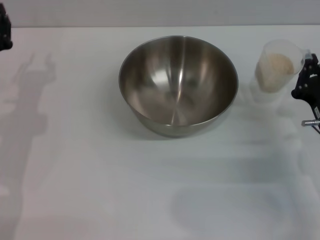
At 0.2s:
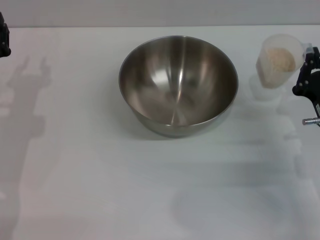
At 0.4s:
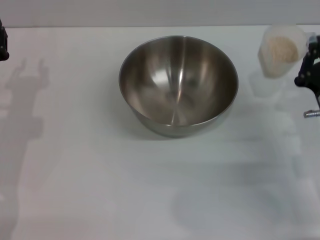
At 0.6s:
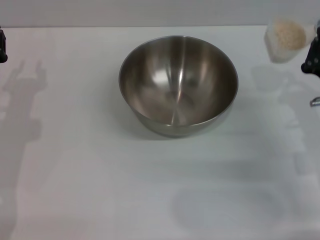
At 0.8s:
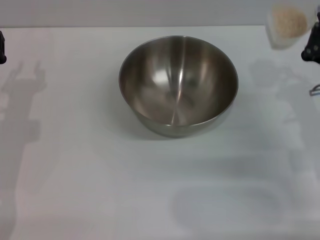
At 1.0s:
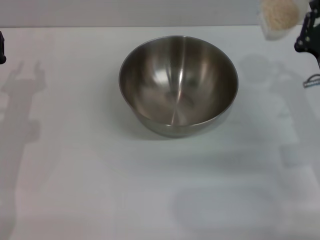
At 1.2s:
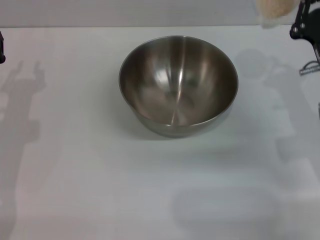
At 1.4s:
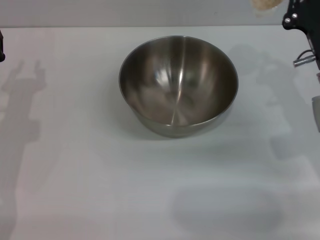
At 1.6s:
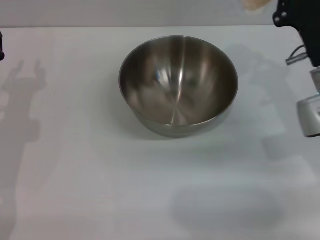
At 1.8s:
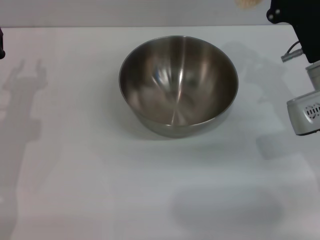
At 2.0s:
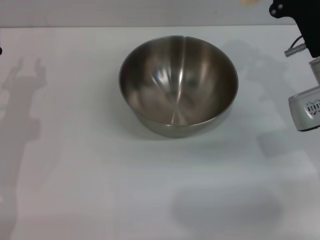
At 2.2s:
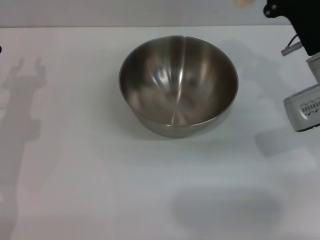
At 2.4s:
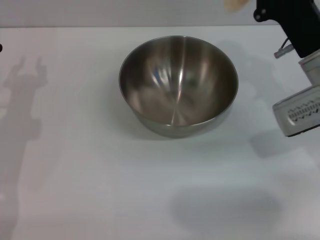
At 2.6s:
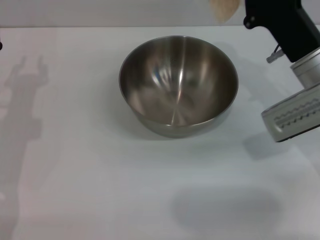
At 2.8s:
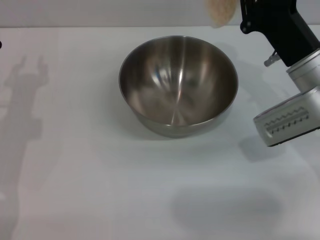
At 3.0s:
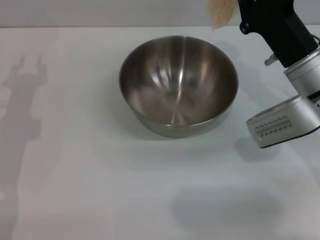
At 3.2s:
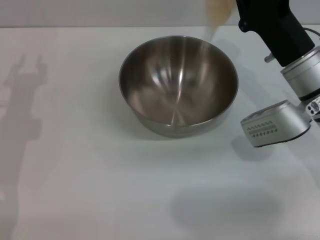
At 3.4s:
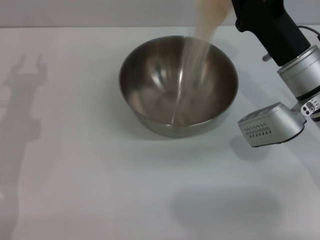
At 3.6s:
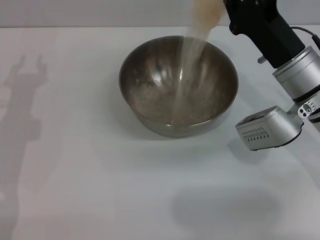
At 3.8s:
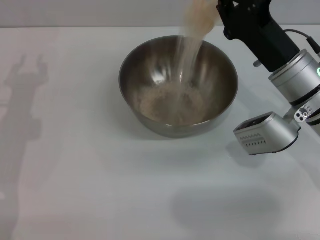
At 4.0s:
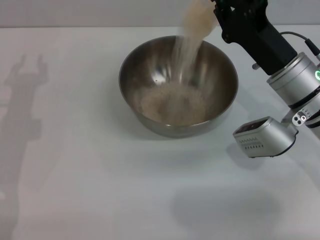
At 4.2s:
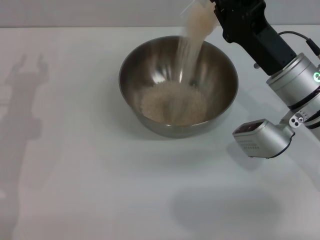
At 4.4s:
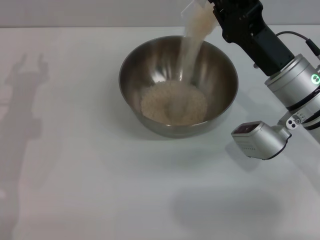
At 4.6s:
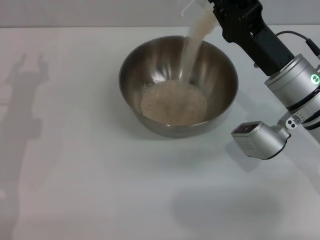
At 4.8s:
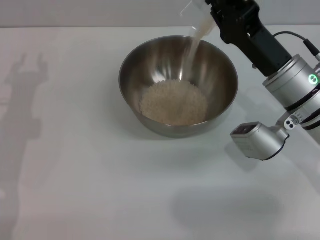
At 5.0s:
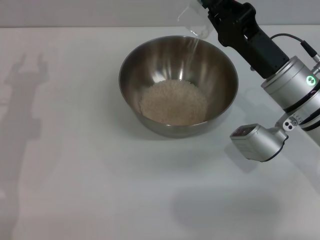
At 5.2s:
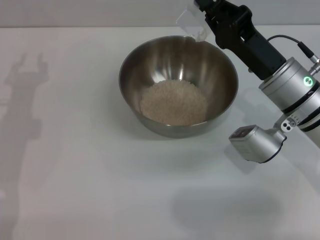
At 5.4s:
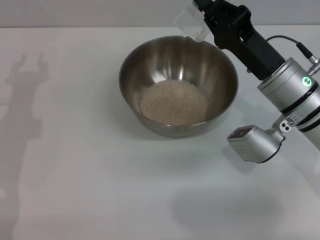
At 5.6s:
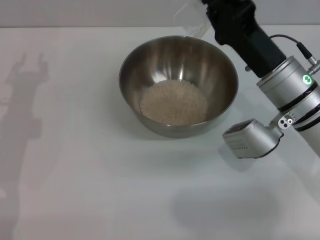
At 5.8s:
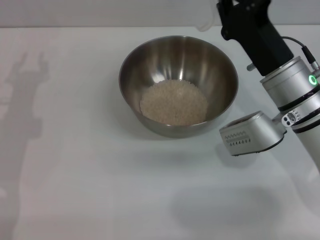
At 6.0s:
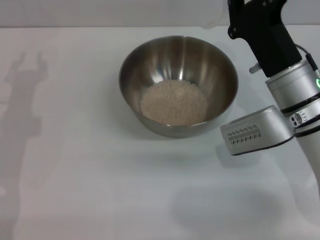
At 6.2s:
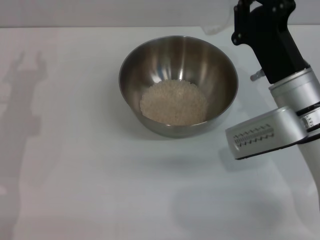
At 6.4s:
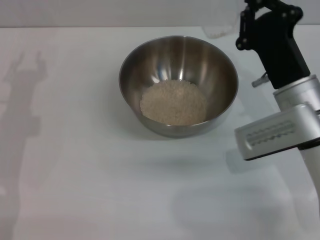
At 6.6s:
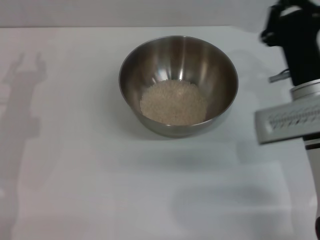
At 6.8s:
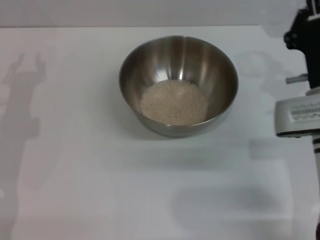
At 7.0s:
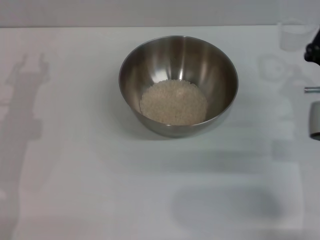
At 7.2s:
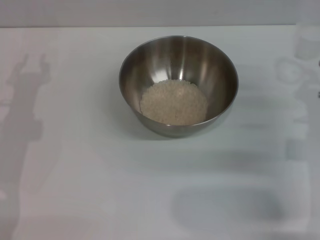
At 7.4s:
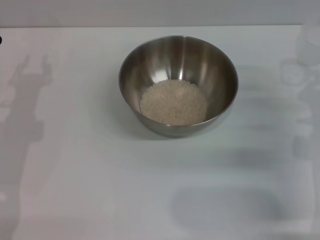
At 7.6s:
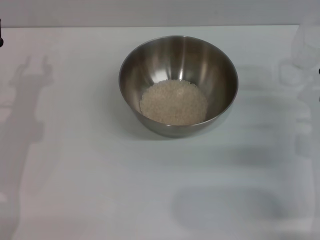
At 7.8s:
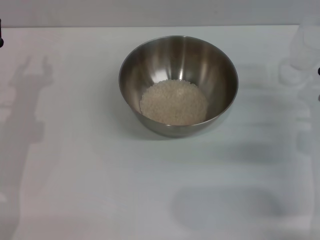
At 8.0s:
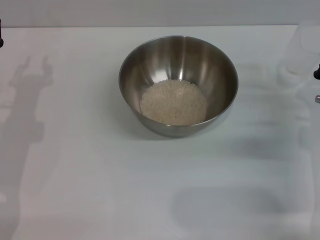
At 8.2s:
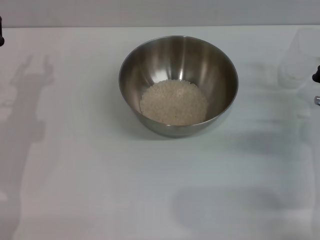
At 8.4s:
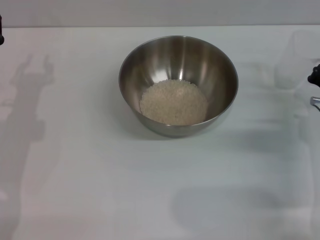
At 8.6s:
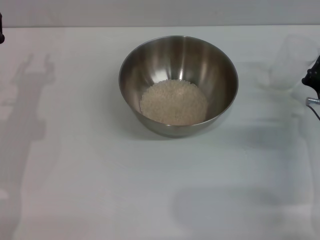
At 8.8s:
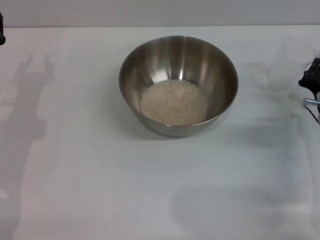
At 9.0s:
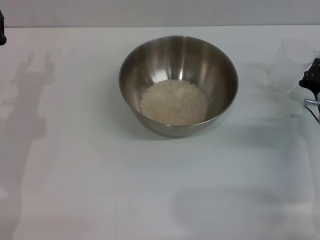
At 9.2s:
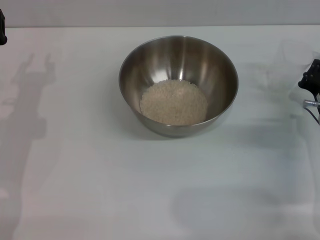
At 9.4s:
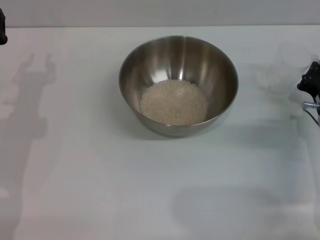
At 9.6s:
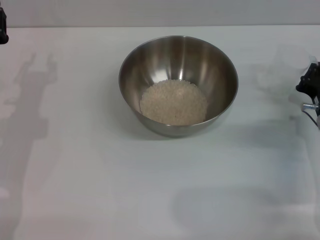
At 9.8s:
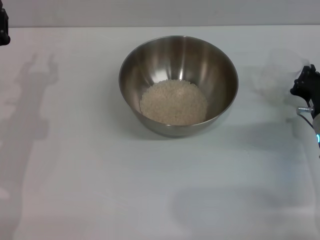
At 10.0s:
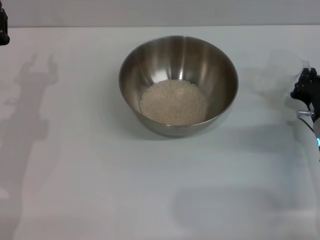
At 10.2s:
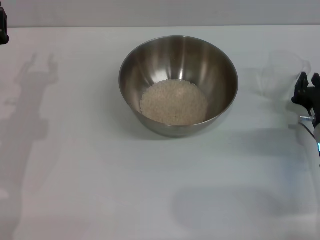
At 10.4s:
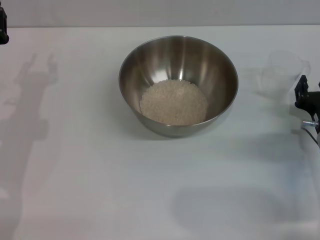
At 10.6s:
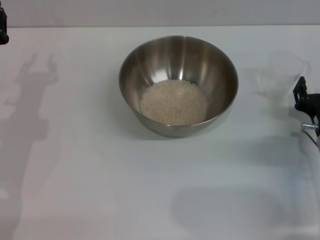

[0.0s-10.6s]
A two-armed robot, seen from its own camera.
Task of the whole recording: Place the bowl in the middle of the table with one hand and pour the rice from the grain cup into it with the other hand.
Step, 0.0s to 5.6s: Pour the rice from the cup into the bowl with the right gripper.
Step, 5.8s to 10.6s: Place the cup on the table with the right gripper.
0.0s to 1.6s: The right gripper travels upward and forward by approximately 10 cm.
6.0s to 7.6s: The right gripper is displaced to the right and downward by roughly 10 cm.
7.6s to 9.0s: There are only small adjustments of the grippers.
9.0s to 10.6s: The right gripper opens its fingers.

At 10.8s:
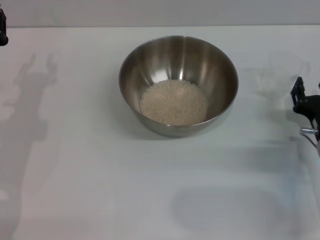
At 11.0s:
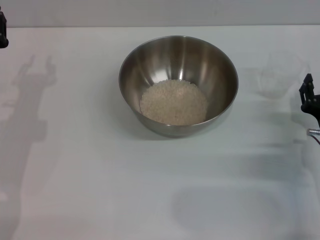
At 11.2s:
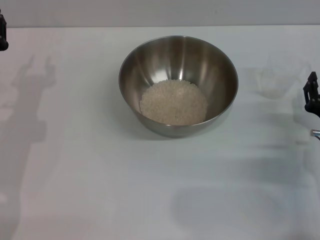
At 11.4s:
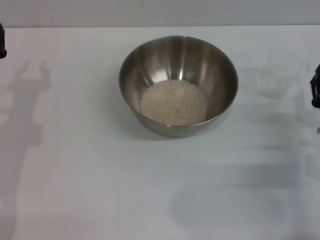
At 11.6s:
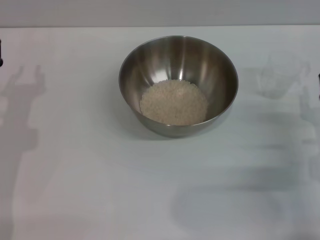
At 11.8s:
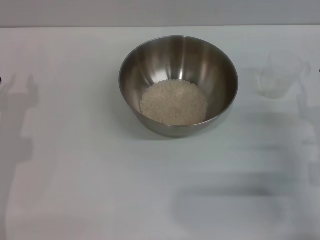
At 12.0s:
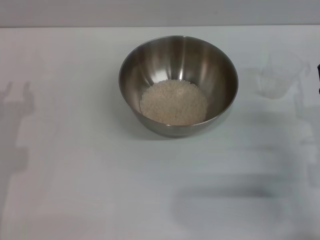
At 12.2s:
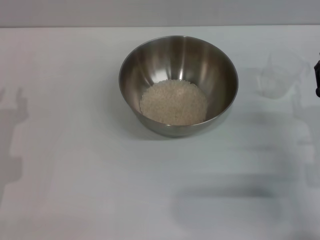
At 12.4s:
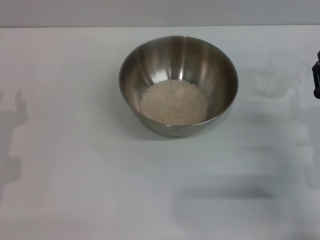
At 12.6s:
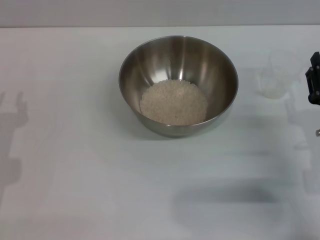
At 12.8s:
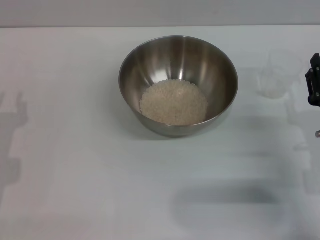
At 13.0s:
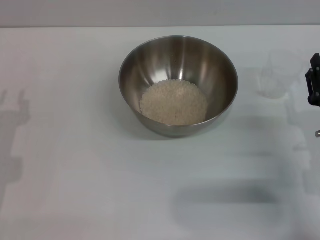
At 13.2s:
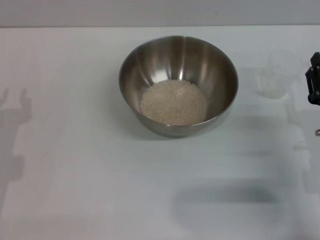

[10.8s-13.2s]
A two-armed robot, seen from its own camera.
Task of the whole recording: Place the bowl in the middle of the table with one hand and pour the rice from the grain cup into it with the other hand.
12.0s to 13.2s: The grippers stay close to where they were, moving slightly.

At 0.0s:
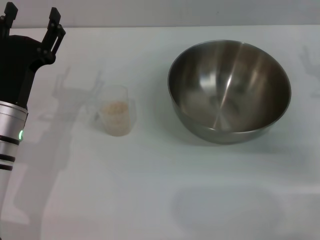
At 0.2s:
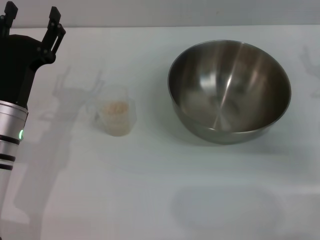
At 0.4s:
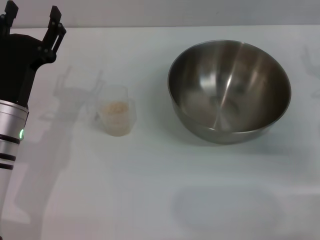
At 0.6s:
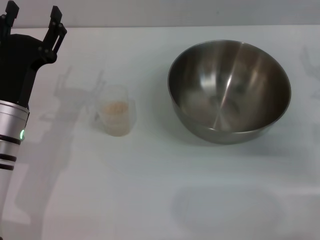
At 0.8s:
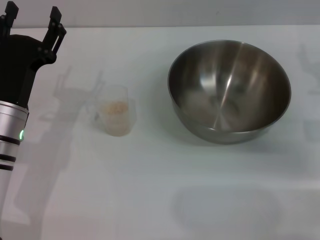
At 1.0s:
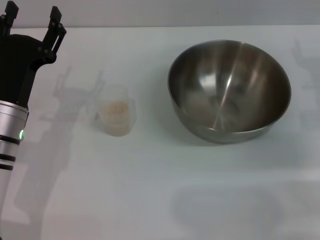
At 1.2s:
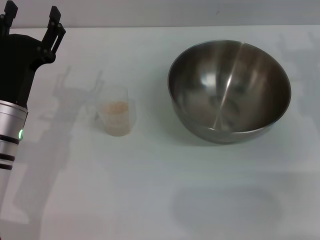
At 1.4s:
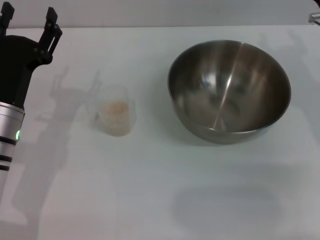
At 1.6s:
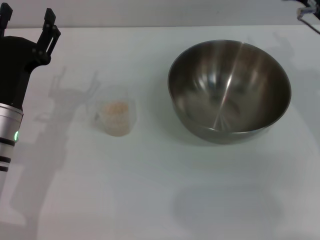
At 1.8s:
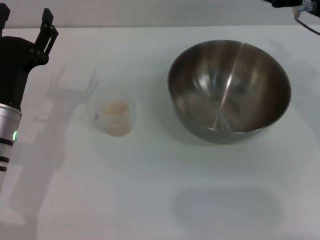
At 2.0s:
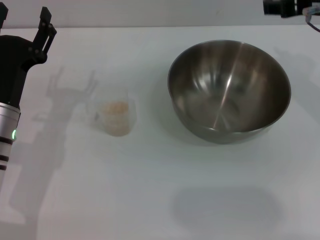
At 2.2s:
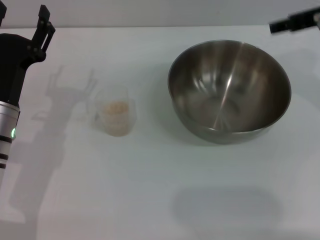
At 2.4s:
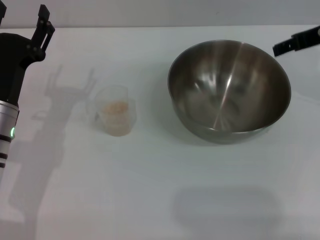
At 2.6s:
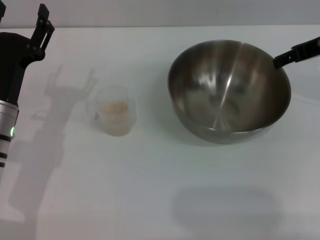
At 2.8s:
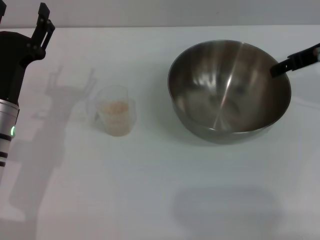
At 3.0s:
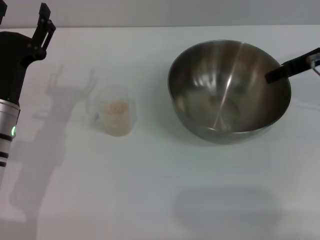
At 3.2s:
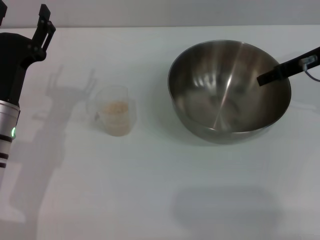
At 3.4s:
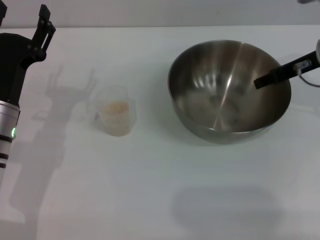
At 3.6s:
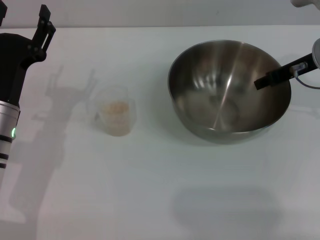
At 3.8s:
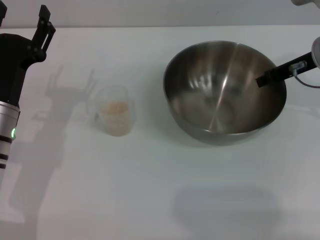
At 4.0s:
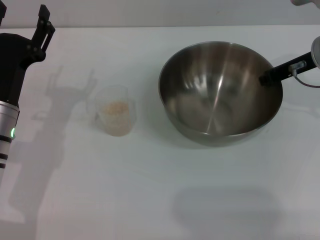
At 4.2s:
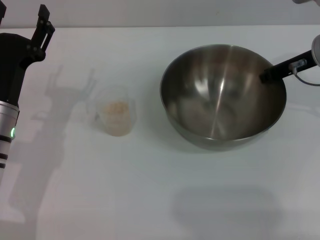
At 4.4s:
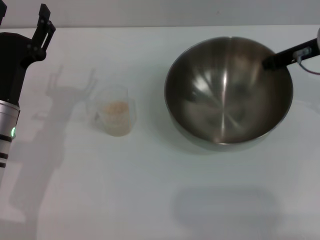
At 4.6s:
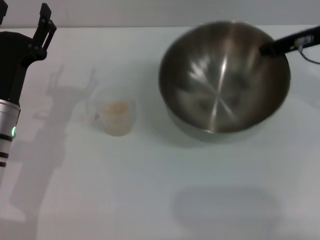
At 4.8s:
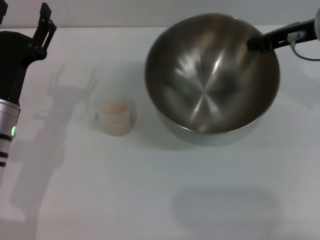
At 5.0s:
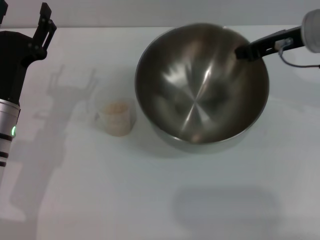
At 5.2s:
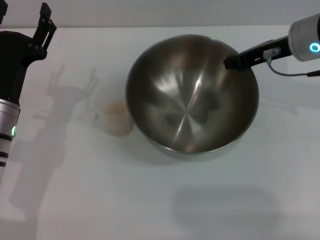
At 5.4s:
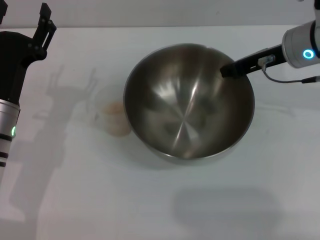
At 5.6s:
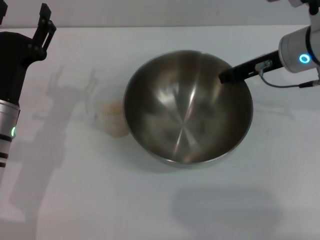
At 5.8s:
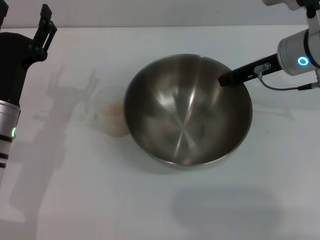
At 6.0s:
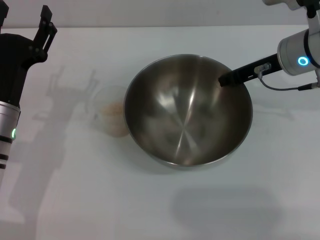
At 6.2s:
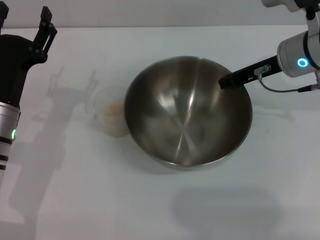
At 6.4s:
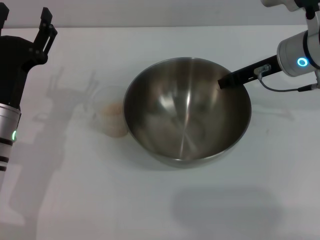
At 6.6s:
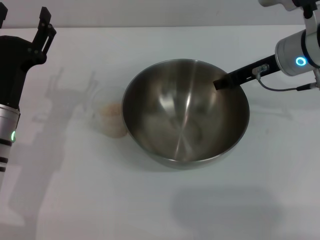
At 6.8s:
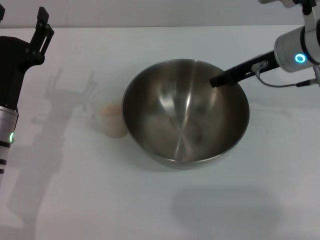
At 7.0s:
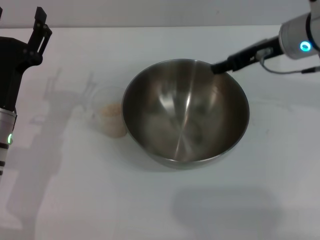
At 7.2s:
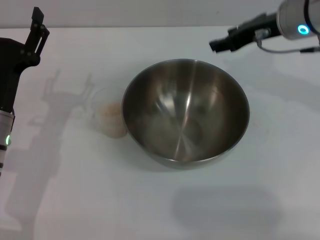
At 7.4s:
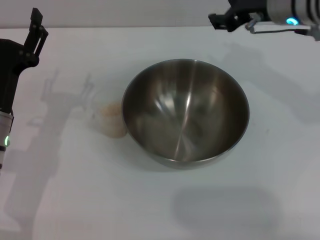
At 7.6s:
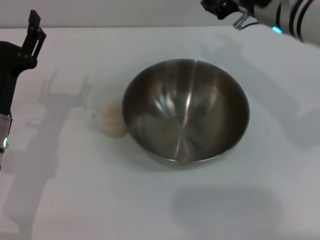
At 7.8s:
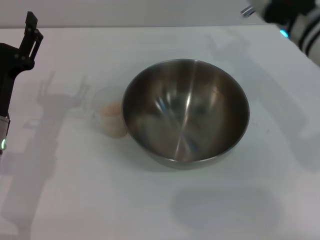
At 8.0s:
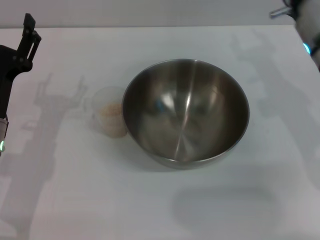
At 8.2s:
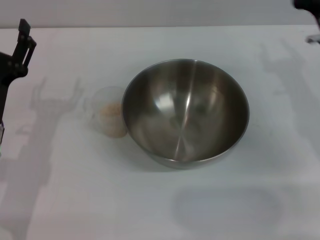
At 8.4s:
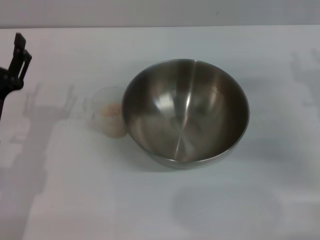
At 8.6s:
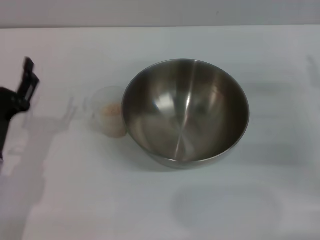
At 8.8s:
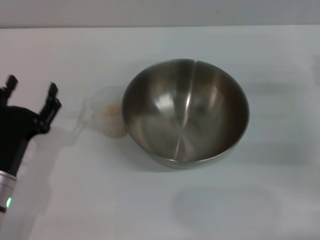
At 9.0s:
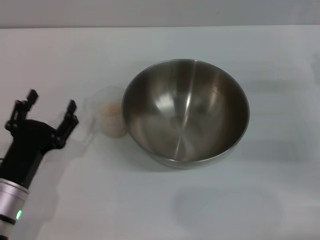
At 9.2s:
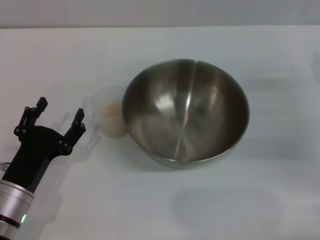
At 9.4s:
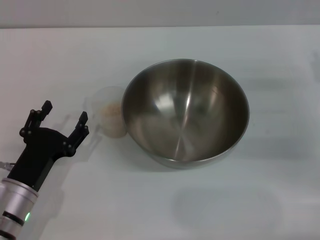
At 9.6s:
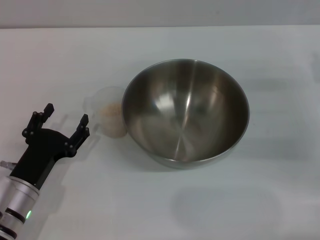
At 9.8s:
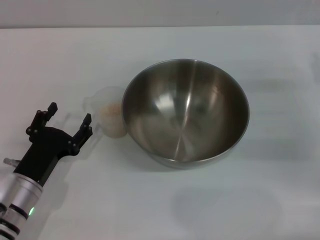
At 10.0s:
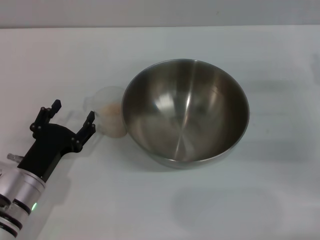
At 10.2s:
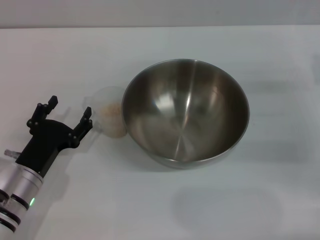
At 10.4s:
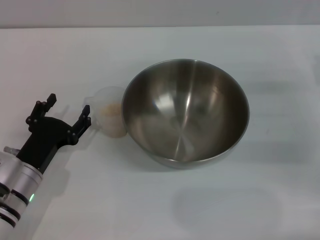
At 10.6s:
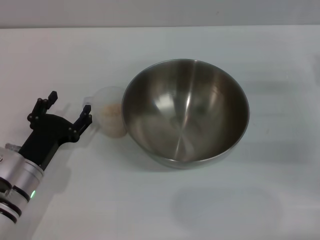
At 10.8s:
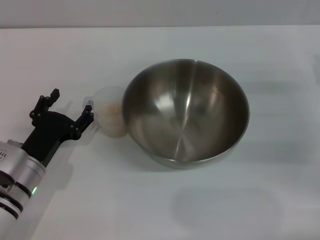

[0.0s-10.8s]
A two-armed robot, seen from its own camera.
Task of the whole recording: Place the bowl in the middle of the table with one hand and pour the rice from the grain cup into it with the other hand.
Step, 0.0s to 5.0s: Pick up the bowl with the right gripper.
Step, 5.2s to 7.0s: Place the bowl in the center of view with the right gripper.
0.0s to 1.6s: The right gripper shifts some 10 cm upward and to the left.
3.0s to 4.6s: The right gripper closes up.
4.6s to 6.2s: The right gripper shifts by roughly 5 cm.
6.2s to 7.8s: The right gripper opens.
7.8s to 9.2s: The right gripper heads to the right, downward and backward, covering about 20 cm. Meanwhile the left gripper goes about 10 cm backward and downward.
9.2s to 10.8s: The grippers stay close to where they were, moving slightly.
